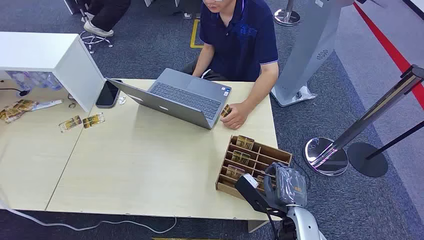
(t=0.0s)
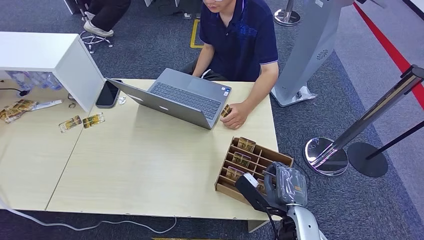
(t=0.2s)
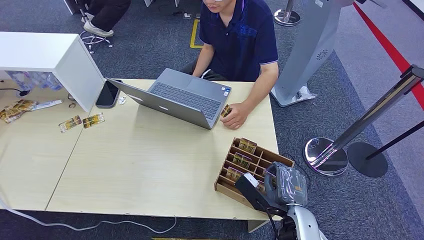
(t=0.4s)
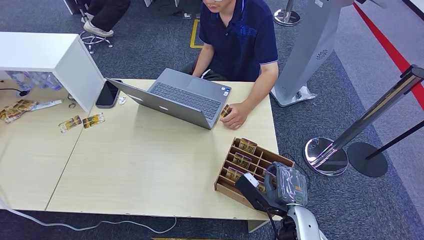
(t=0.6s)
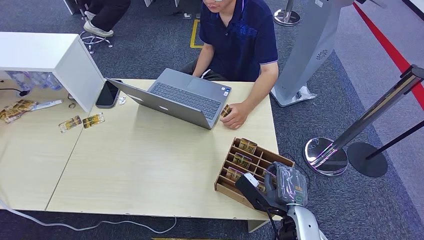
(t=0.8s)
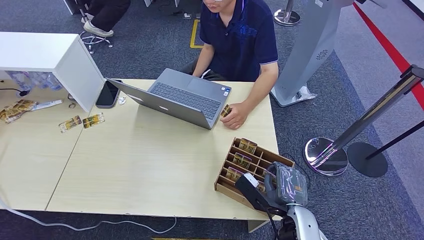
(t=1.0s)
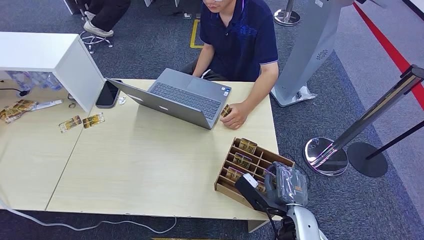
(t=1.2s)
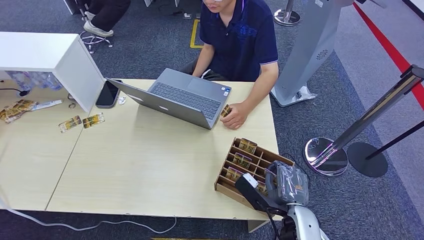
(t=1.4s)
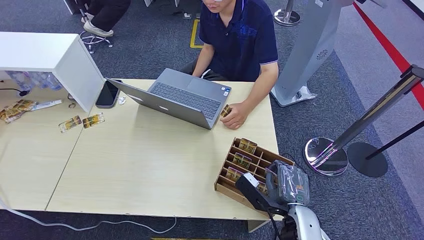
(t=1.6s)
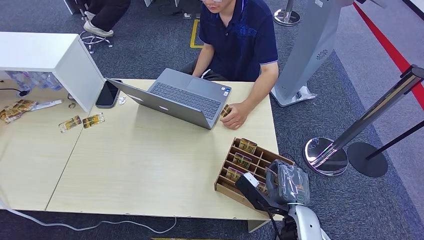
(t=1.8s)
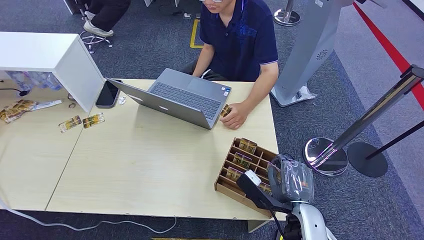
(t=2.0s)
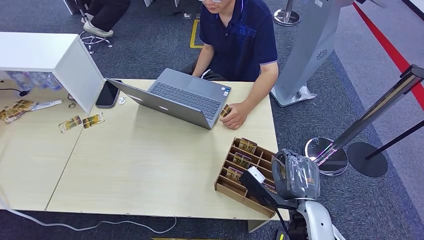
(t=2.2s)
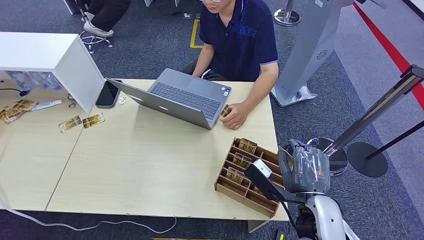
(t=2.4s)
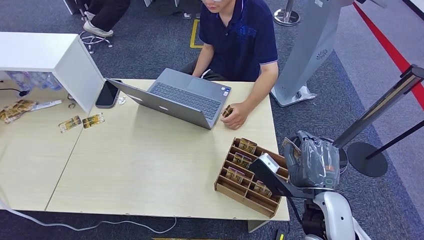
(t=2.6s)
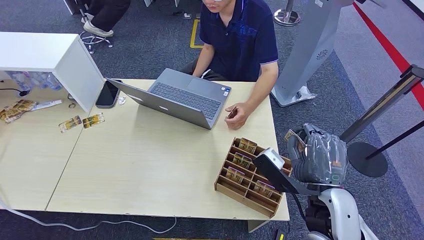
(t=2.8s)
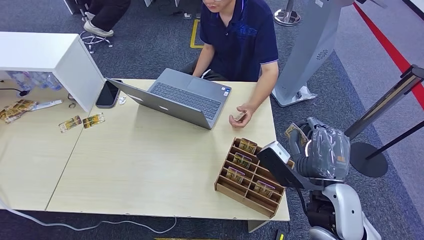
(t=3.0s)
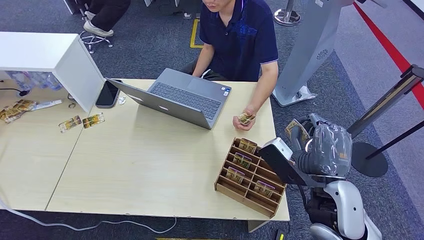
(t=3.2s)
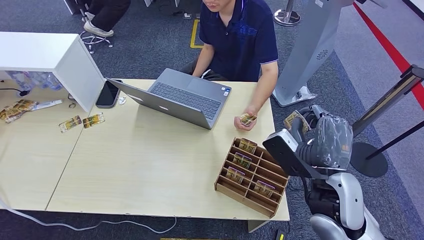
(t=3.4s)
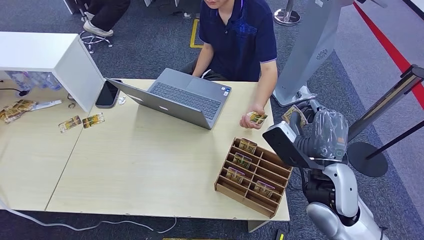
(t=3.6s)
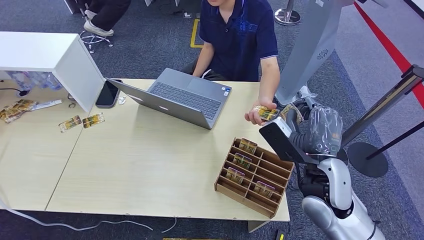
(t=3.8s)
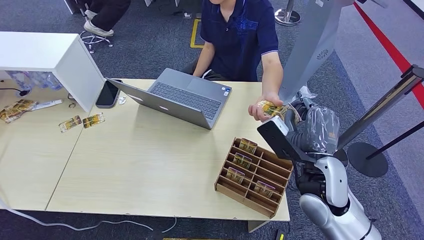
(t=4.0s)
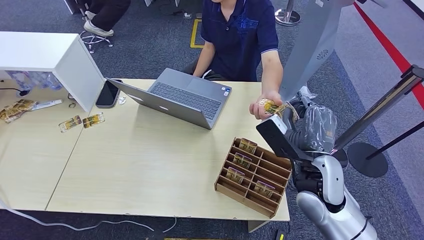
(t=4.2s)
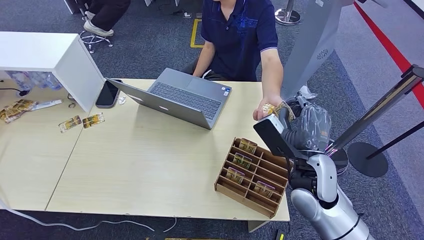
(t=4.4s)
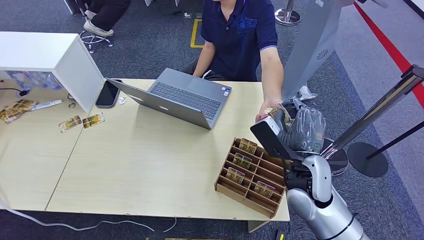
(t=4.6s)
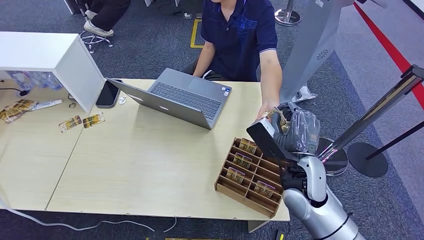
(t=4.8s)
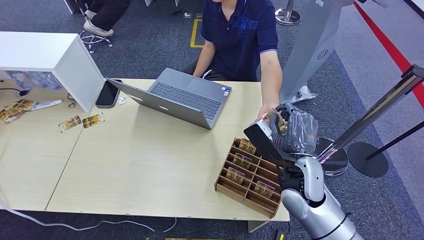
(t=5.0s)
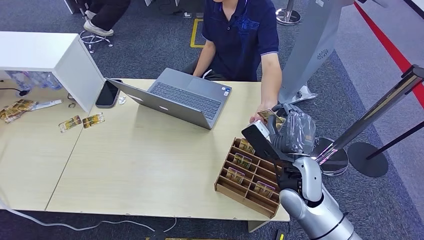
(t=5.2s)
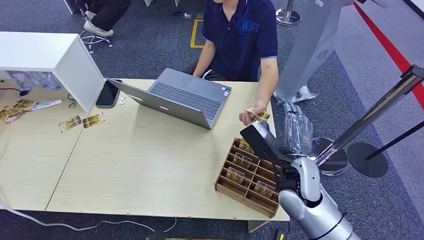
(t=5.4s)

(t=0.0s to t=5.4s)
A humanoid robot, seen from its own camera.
Step, t=0.0s - t=2.2s: Pick up the room card from the card holder.
Step, t=4.4s - t=5.4s: Hand the room card to the target.
t=1.4s - t=2.8s: The right hand moves upward, about 10 cm.
t=2.8s - t=4.0s: The right hand moves forward, roughly 5 cm.
t=4.0s - t=5.4s: The right hand shifts by roughly 5 cm.

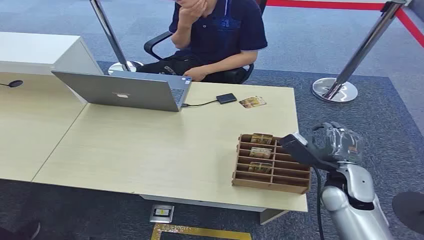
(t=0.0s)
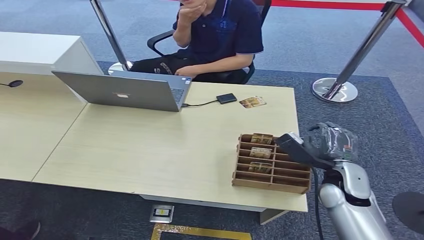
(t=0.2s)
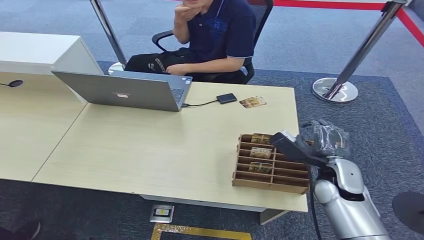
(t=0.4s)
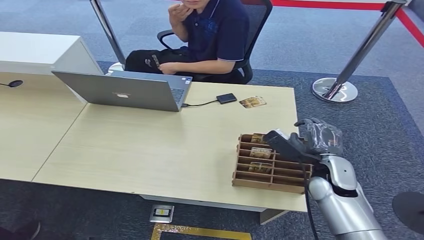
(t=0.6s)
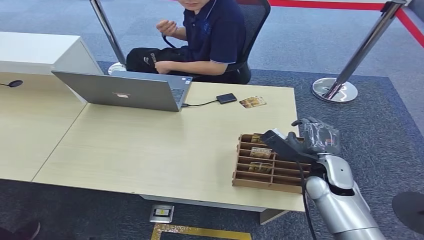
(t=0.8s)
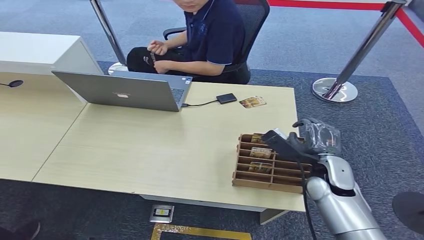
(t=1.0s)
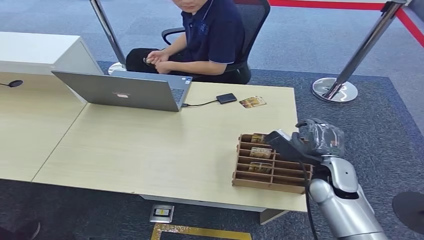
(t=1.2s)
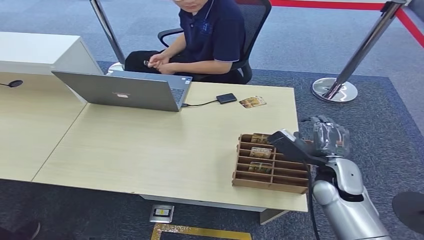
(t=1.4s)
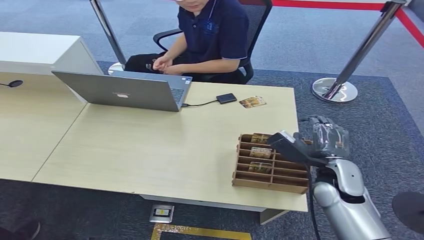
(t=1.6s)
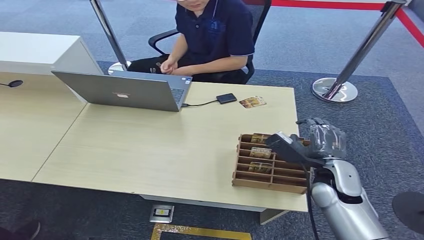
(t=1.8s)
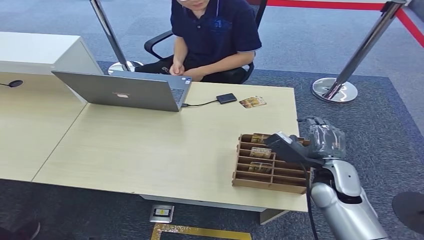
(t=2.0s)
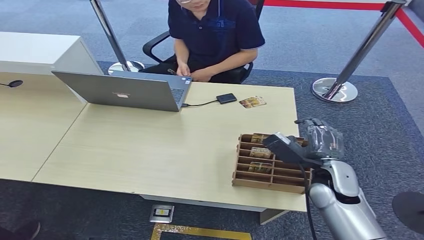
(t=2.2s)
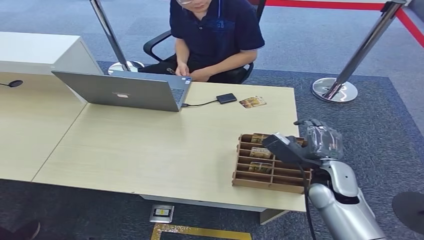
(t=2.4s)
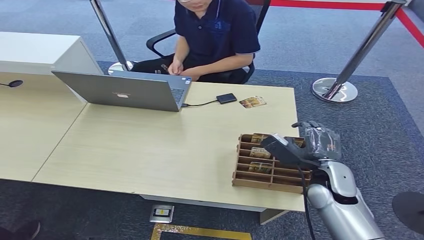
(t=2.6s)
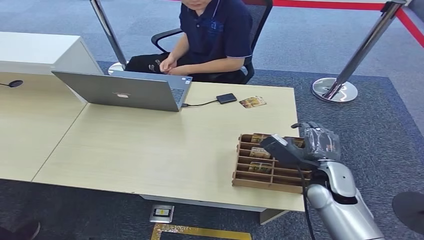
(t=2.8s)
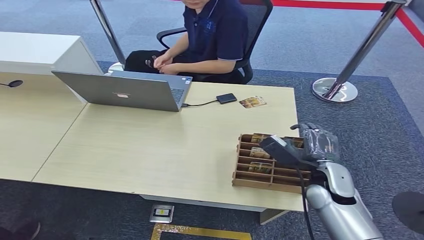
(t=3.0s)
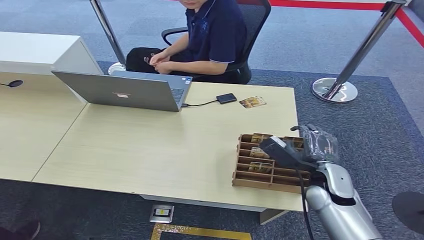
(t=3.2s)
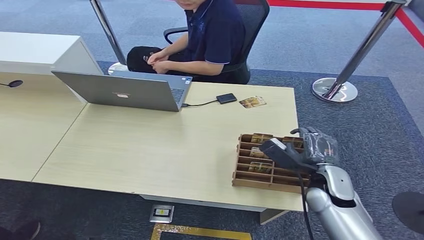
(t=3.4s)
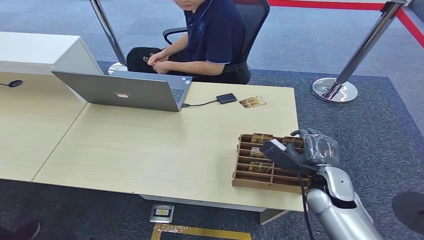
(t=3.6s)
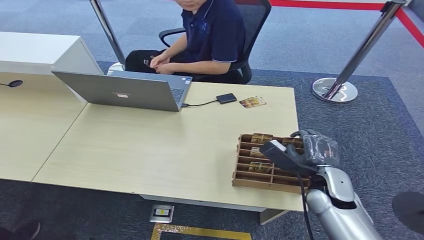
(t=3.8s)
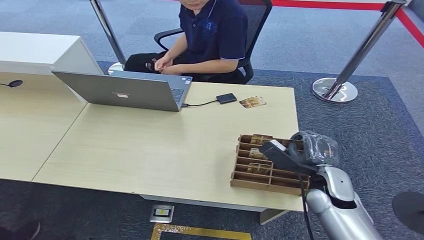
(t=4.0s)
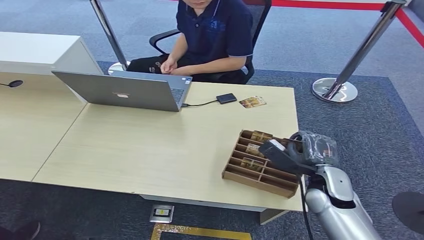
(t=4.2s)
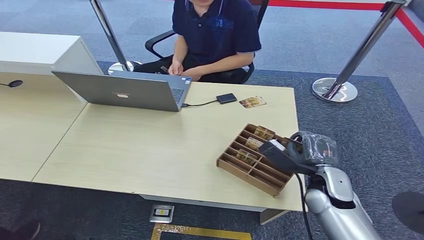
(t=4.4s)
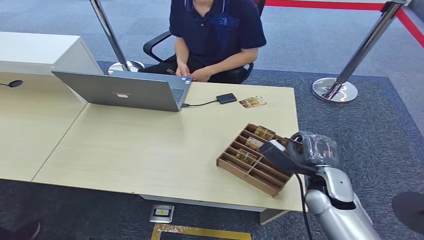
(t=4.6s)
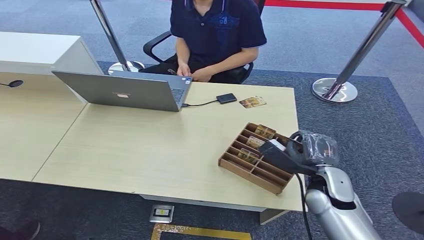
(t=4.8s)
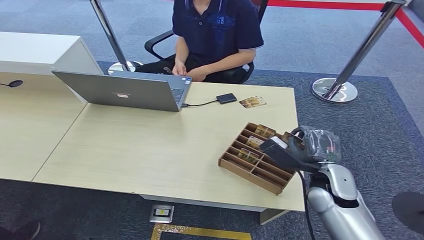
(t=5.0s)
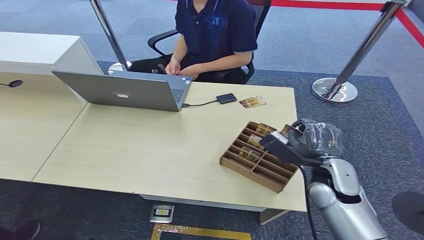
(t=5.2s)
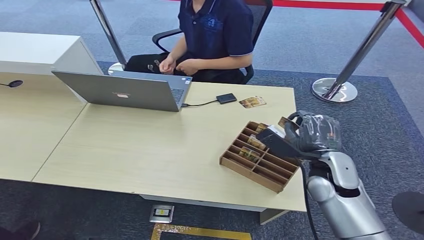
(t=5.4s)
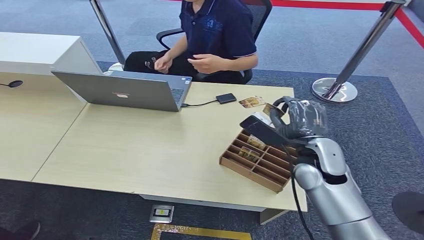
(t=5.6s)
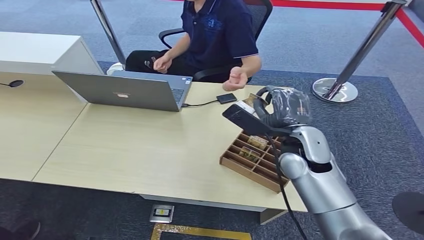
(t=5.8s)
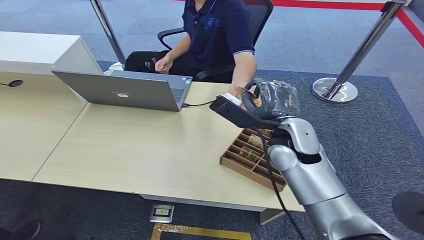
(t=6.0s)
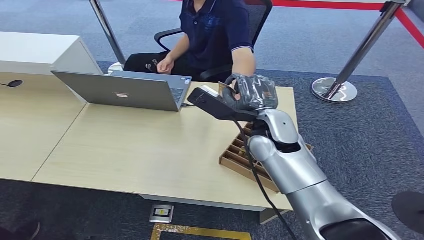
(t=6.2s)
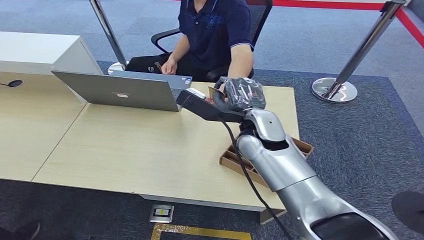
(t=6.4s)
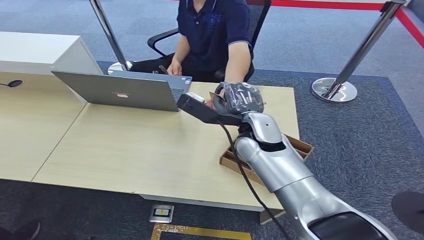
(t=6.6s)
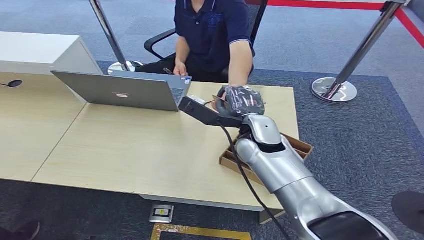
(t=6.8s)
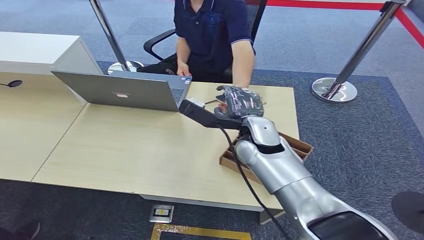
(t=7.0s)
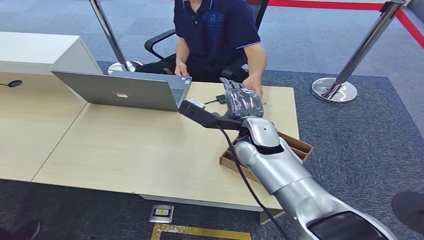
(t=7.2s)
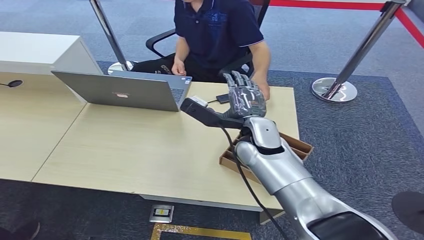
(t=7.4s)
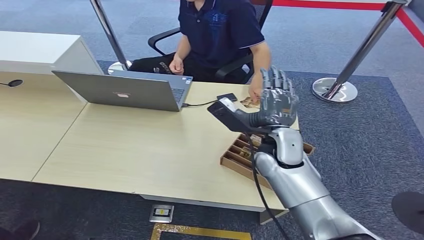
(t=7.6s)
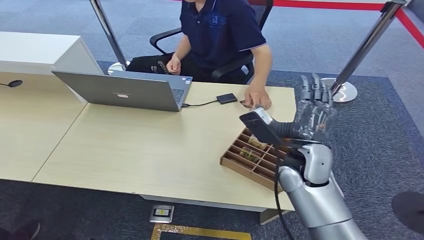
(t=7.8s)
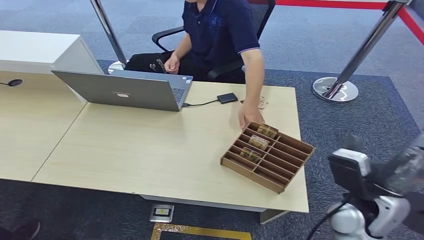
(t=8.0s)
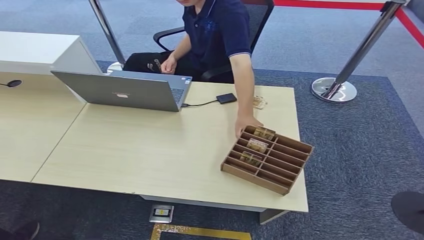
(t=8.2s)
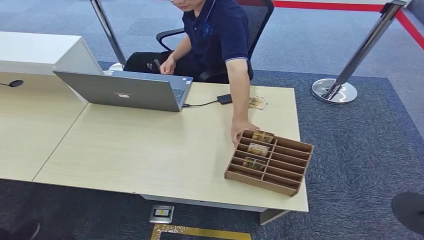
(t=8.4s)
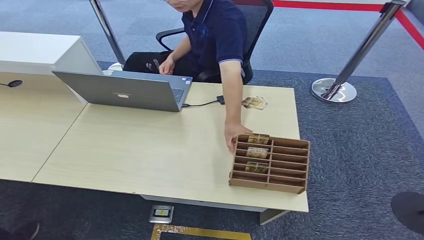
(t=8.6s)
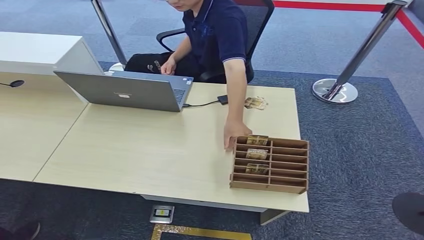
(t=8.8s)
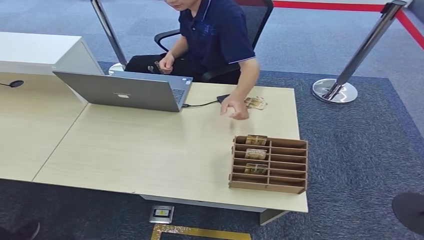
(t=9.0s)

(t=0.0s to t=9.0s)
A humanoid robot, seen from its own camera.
Step, t=0.0s - t=5.6s: Pick up the room card from the card holder.
Step, t=5.8s - t=9.0s: Hand the room card to the target.
t=1.6s - t=4.4s: The hands move only a little.
t=4.4s - t=6.0s: The right hand moves upward, to the left and forward, roughly 20 cm.
t=6.0s - t=7.6s: The hands make only small movements.
t=7.6s - t=9.0s: The right hand moves backward, downward and to the right, about 50 cm.
